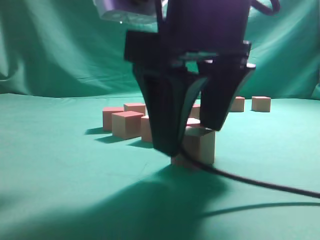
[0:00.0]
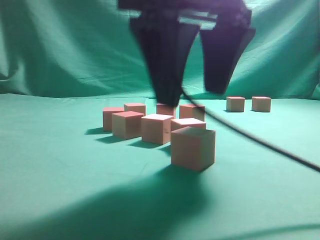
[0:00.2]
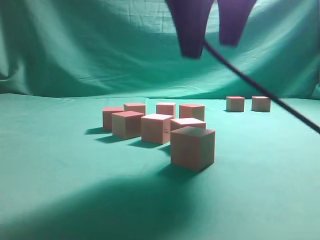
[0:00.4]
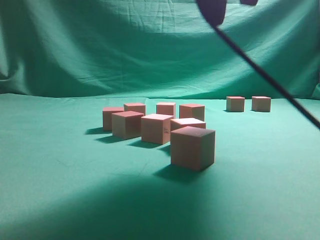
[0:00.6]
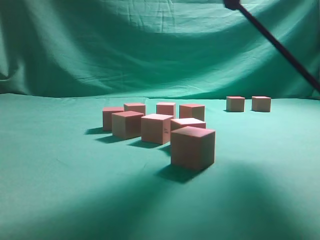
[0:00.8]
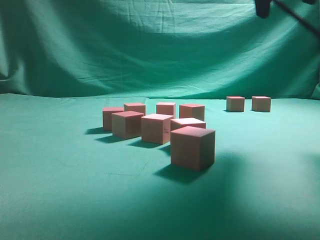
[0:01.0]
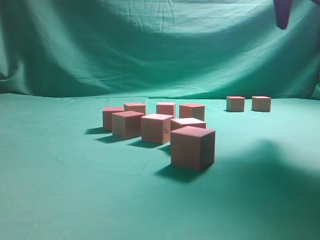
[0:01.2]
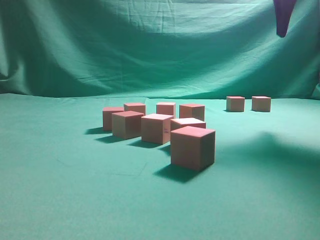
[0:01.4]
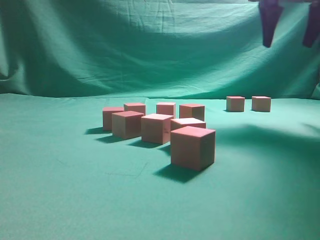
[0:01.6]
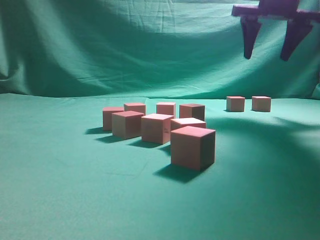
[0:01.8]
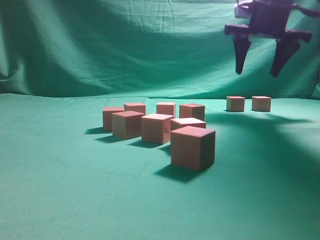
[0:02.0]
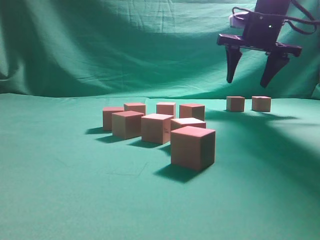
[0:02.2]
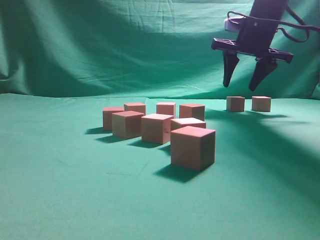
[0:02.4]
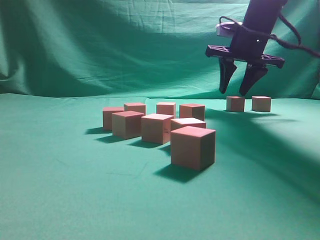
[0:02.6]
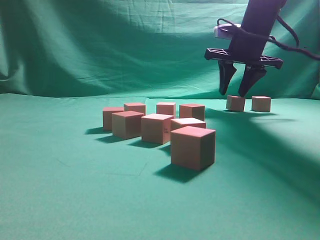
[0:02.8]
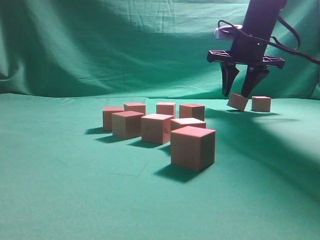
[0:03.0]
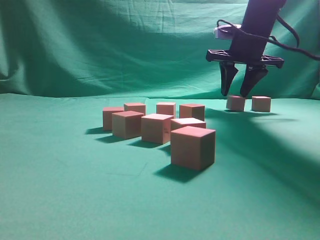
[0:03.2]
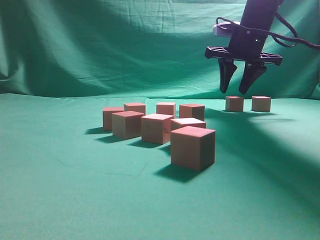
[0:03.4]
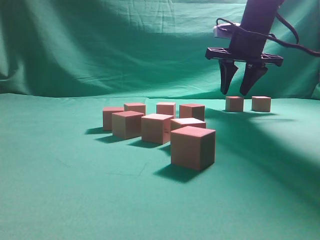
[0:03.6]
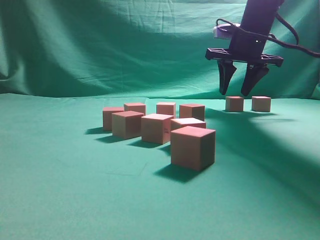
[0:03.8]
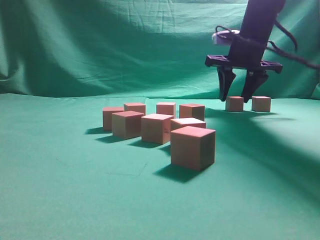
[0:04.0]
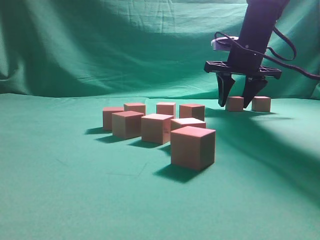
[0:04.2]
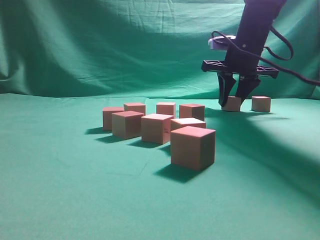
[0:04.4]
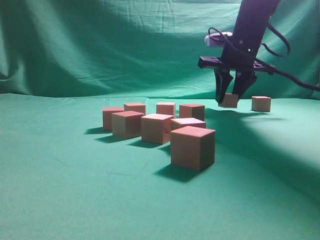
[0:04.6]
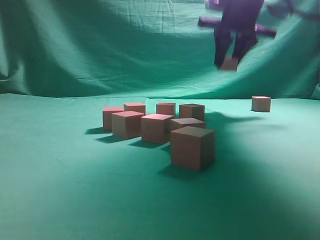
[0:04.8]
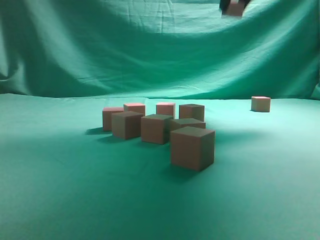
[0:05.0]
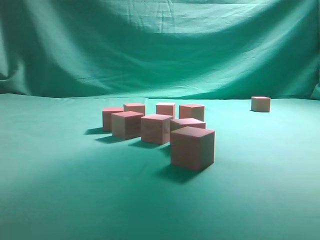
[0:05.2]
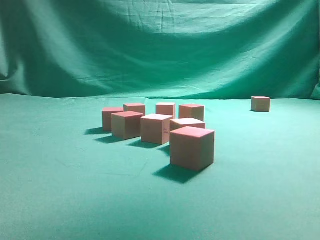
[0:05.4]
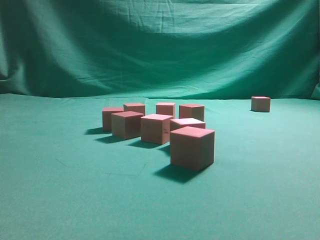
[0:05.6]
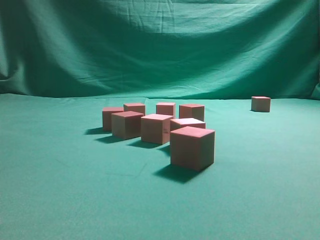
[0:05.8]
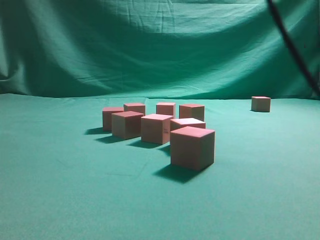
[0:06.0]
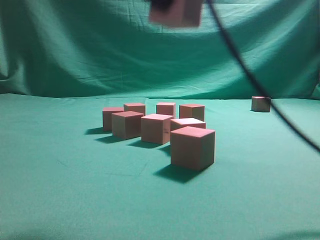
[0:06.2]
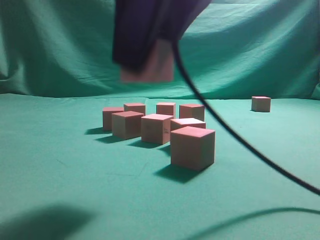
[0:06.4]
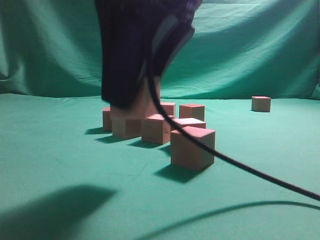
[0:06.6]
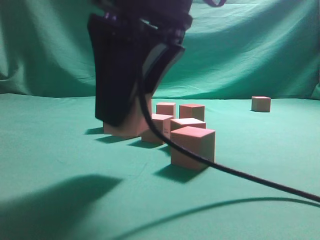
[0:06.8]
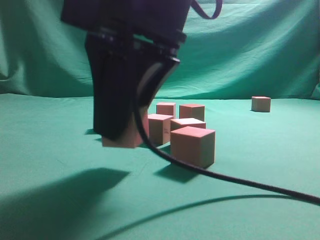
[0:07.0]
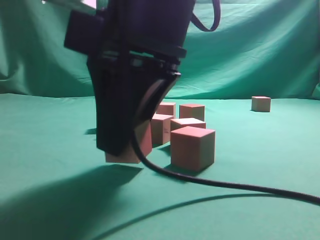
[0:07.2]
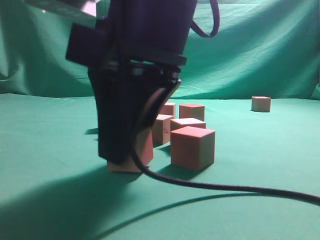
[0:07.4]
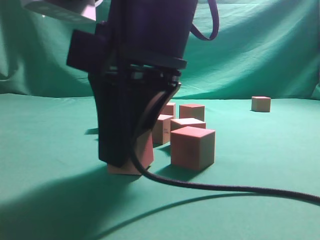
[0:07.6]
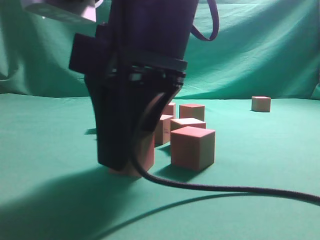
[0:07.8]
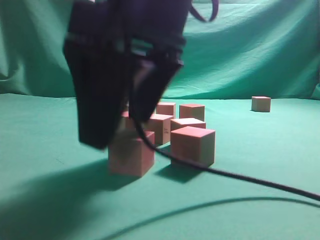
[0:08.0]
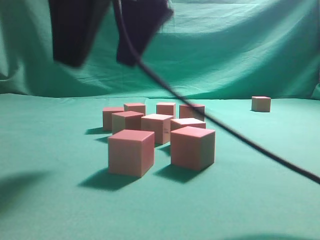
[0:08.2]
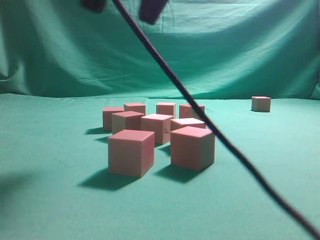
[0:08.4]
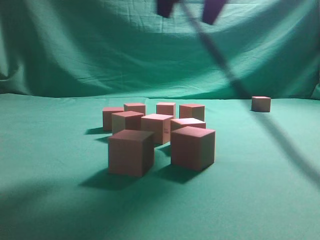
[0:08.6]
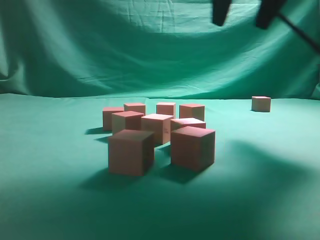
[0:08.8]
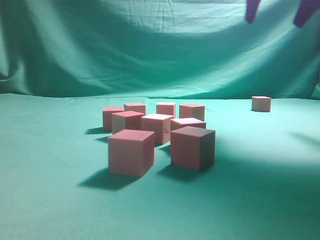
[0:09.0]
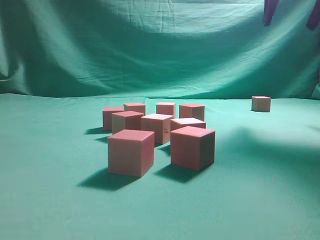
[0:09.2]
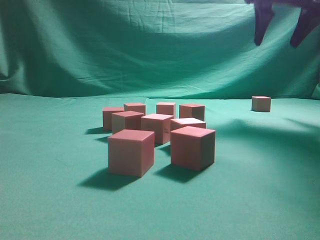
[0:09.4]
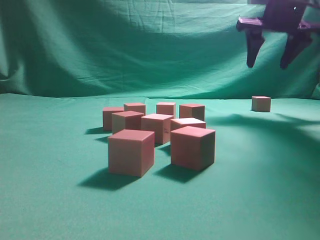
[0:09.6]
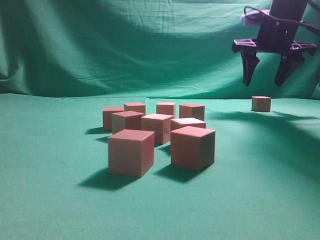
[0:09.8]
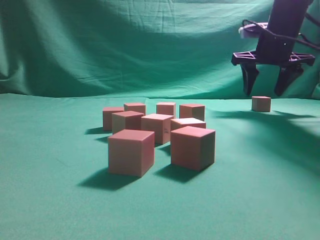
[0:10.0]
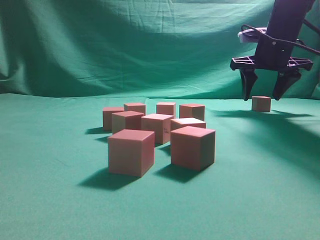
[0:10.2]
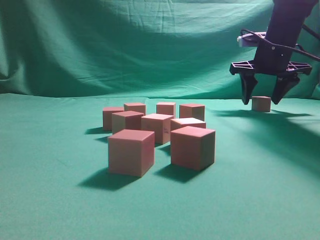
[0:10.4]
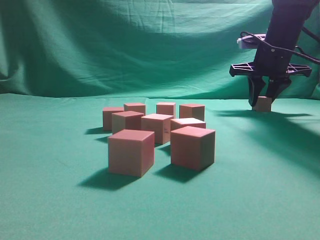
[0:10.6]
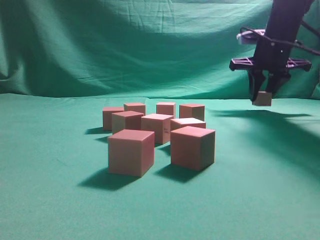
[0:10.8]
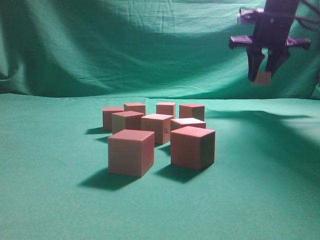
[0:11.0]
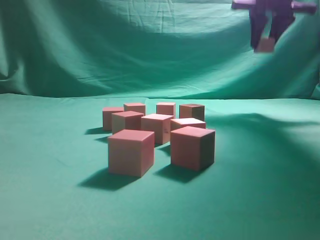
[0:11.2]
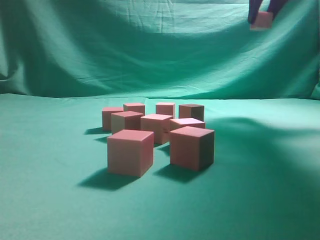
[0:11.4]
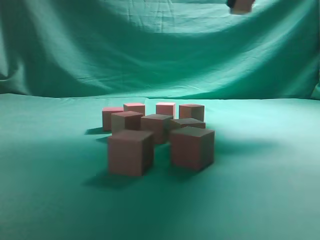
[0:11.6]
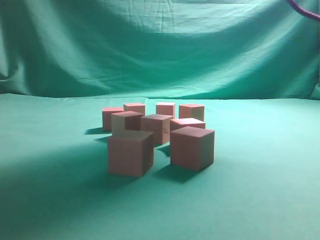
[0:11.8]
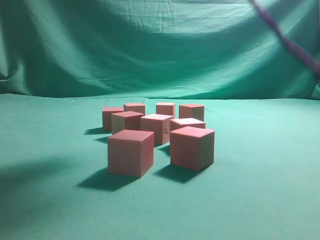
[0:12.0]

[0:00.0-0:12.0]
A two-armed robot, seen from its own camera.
Task of the whole recording: pick up the multiple cubes in two columns one by one and place them in another position on the table.
Step, 0:00.6 to 0:04.8: Pick up the block on the table.
Step, 0:05.0 to 0:08.2: Place the block at the correct position to assemble the letter S.
Step, 0:08.4 to 0:11.2: Pick up the block on the table.
0:00.0 to 0:01.6: The right gripper is displaced forward, to the right and upward by some 25 cm.
0:01.6 to 0:03.0: The right gripper shifts about 15 cm downward, forward and to the left.
0:03.0 to 0:04.4: The grippers stay close to where they were, moving slightly.
0:04.4 to 0:06.0: The right gripper is displaced backward and upward by some 35 cm.
0:06.0 to 0:07.6: The right gripper travels downward and to the left by some 15 cm.
0:07.6 to 0:09.0: The right gripper goes approximately 30 cm to the right, forward and upward, and opens up.
0:09.0 to 0:10.4: The right gripper shifts approximately 20 cm forward and downward.
0:10.4 to 0:12.0: The right gripper is displaced upward, backward and to the left by approximately 30 cm, and closes up.

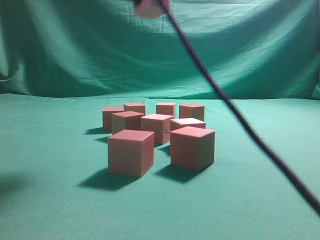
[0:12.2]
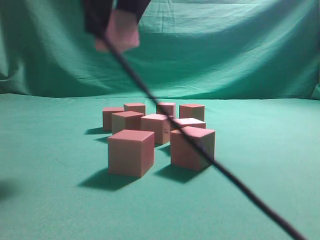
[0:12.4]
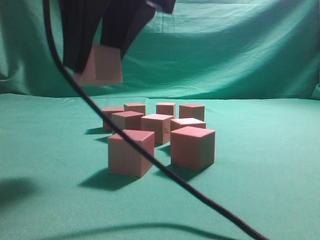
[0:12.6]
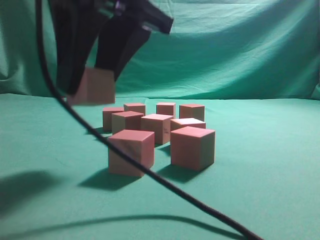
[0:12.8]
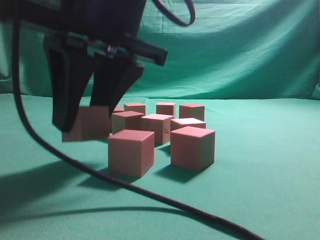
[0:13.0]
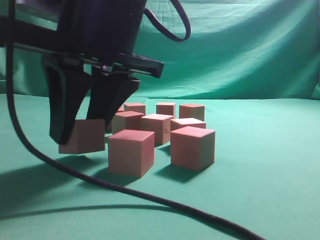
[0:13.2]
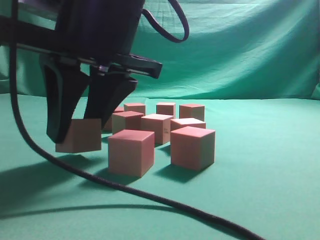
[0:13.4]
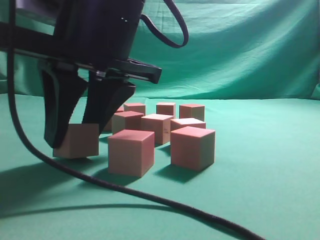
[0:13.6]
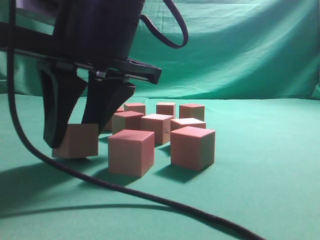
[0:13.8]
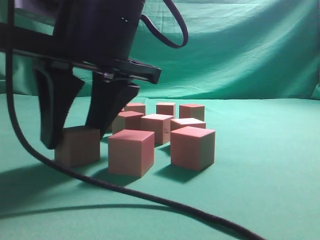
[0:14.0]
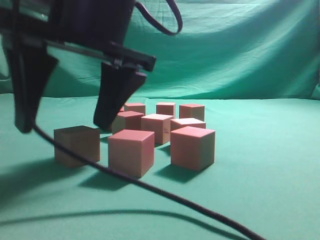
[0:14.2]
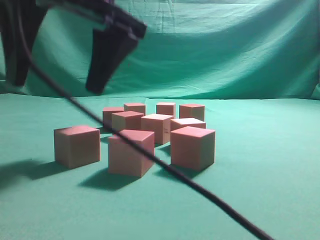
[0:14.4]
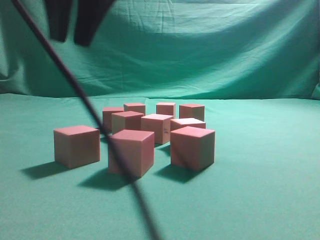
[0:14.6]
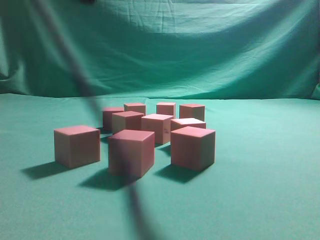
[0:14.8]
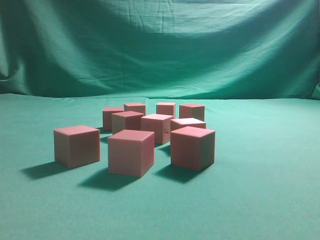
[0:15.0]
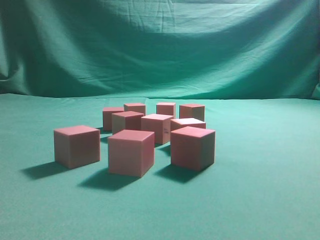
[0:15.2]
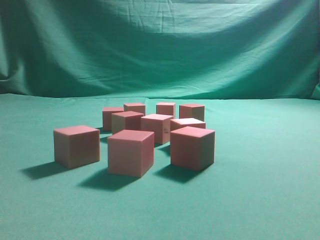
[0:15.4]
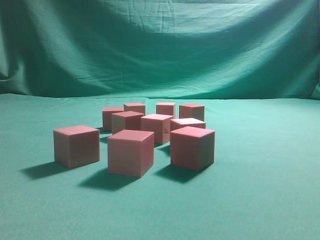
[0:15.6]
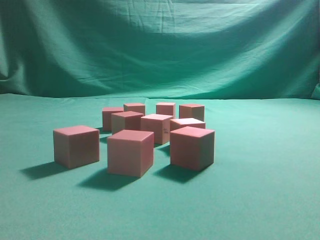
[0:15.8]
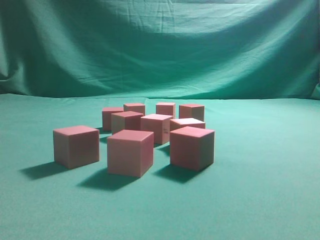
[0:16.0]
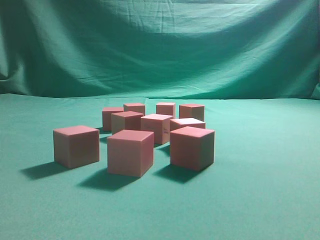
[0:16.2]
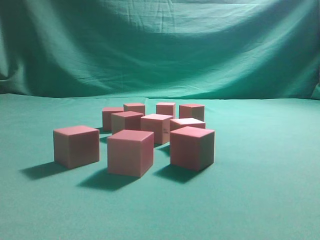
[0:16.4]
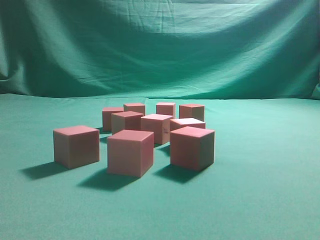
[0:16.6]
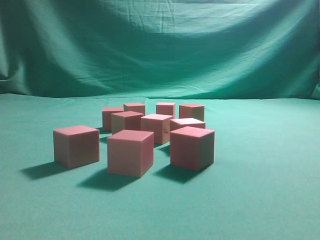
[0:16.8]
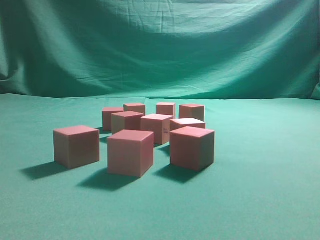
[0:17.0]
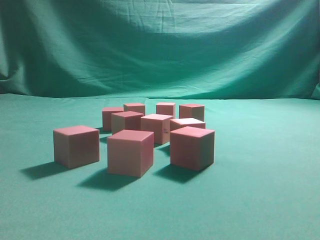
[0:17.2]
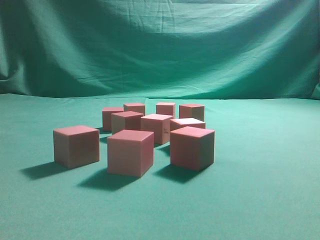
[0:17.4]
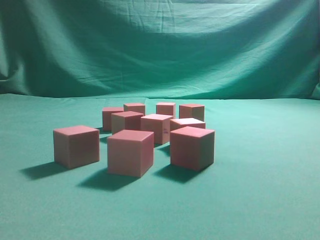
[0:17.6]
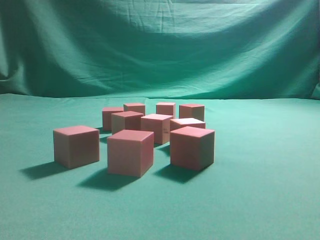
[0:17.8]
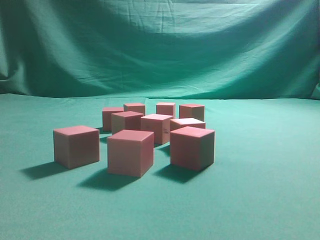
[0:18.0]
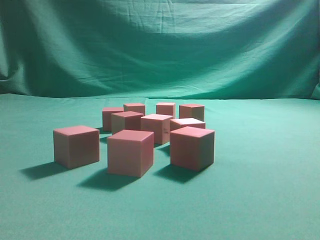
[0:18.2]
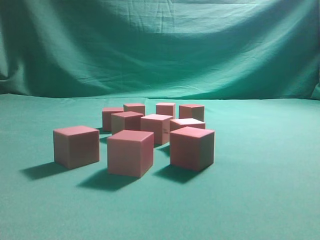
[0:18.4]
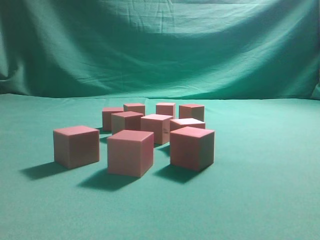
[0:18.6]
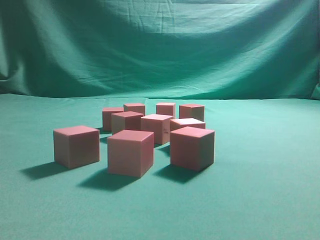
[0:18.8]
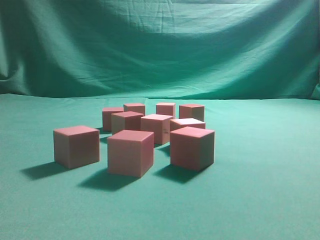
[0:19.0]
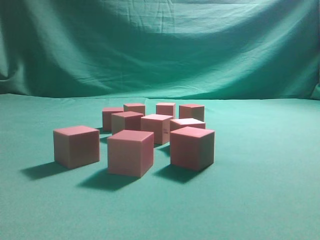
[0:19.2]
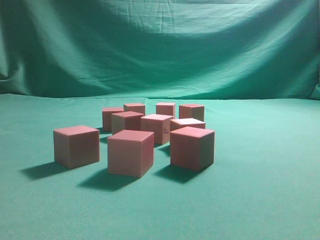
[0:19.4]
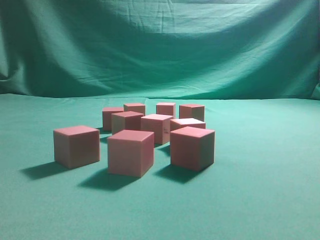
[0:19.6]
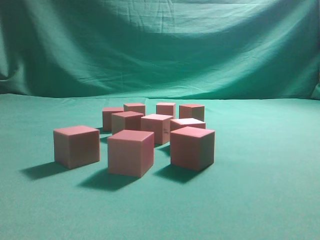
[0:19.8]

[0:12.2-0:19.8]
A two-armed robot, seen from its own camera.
Task of the whole recording: pick up the multiple cubes in two columns one by one and place them in another position on the table.
Step, 0:12.2 to 0:14.4: Place the block at the correct position to assemble the letter S.
0:12.2 to 0:13.8: The right gripper goes roughly 15 cm downward.
0:13.8 to 0:15.2: The right gripper shifts some 30 cm upward, and closes up.
